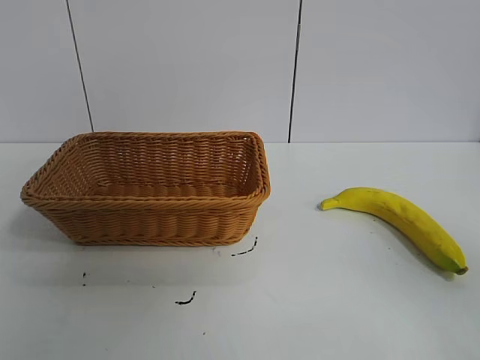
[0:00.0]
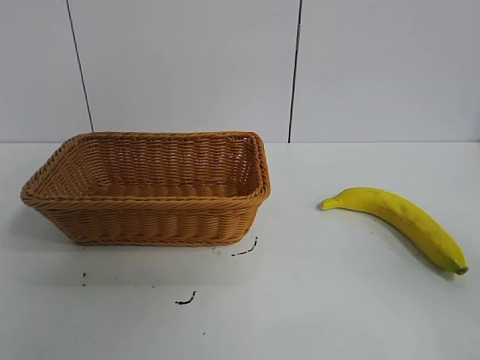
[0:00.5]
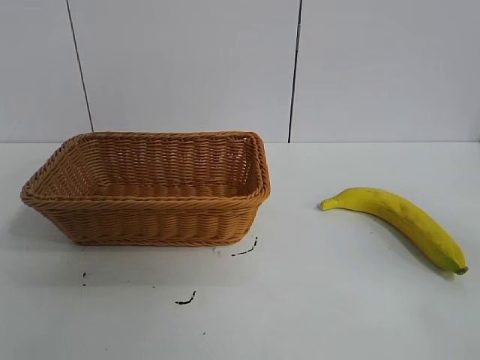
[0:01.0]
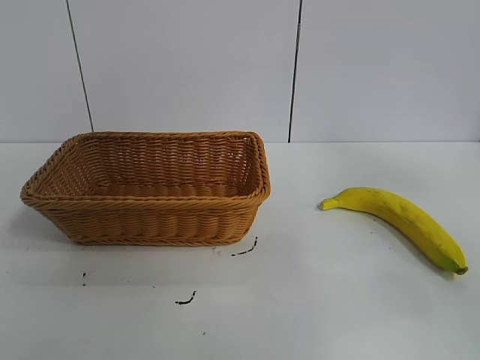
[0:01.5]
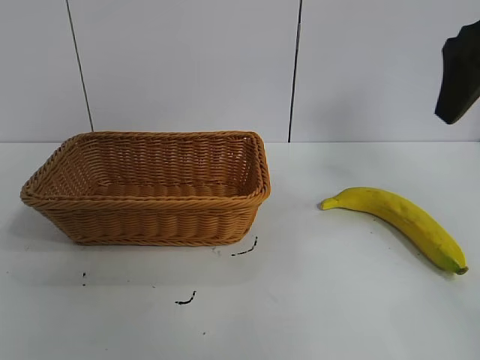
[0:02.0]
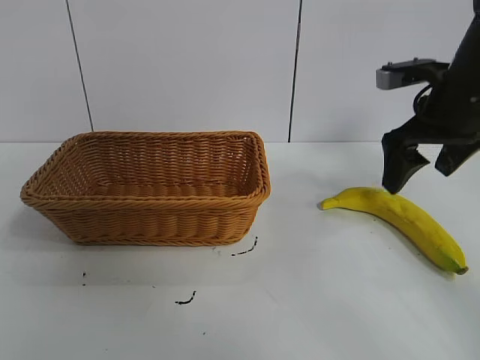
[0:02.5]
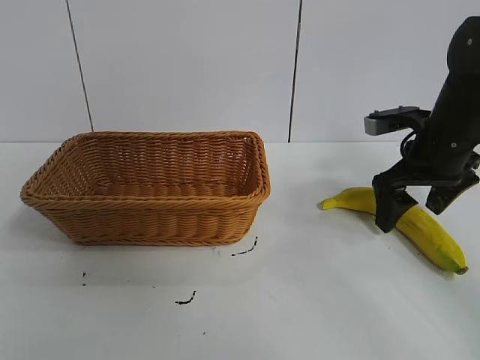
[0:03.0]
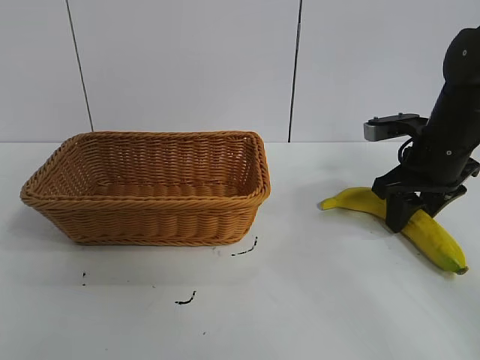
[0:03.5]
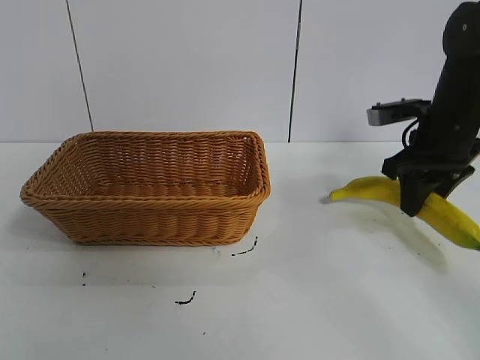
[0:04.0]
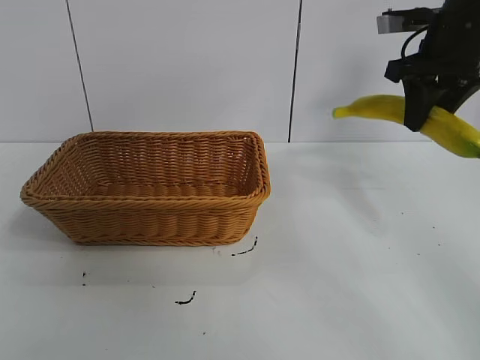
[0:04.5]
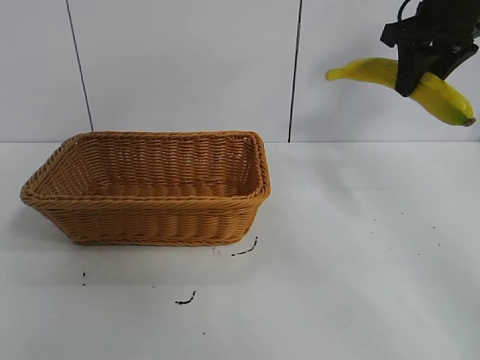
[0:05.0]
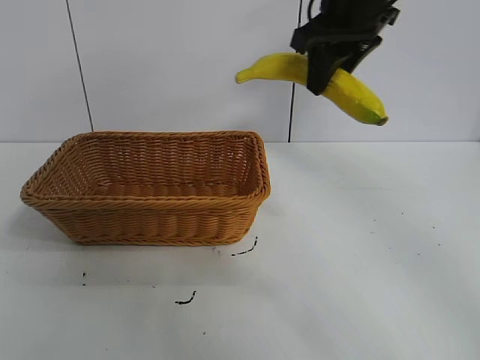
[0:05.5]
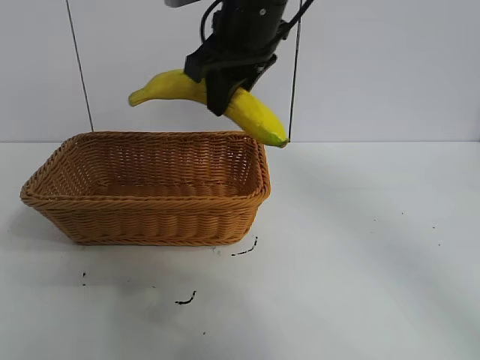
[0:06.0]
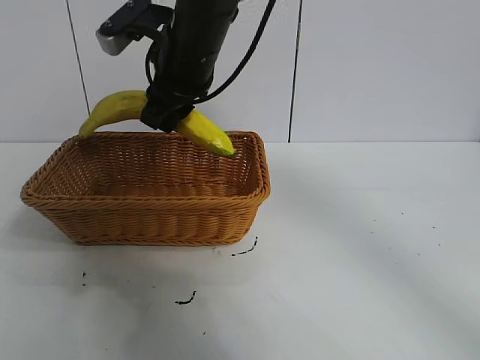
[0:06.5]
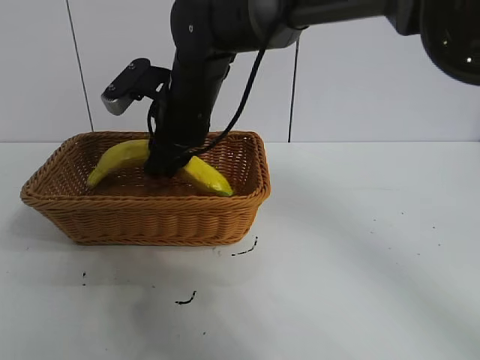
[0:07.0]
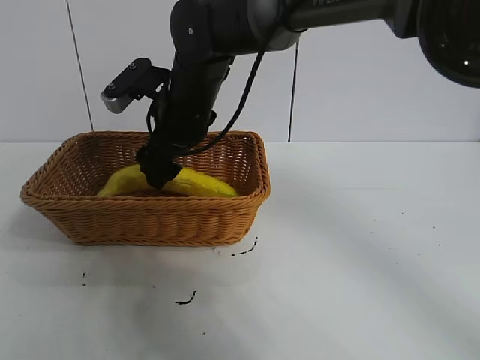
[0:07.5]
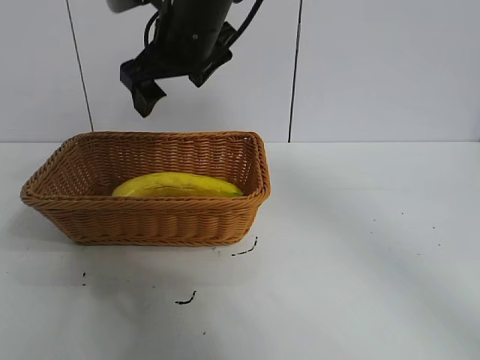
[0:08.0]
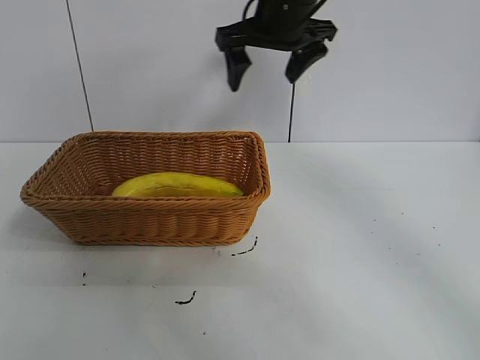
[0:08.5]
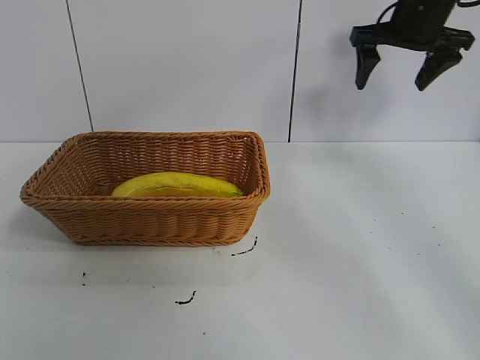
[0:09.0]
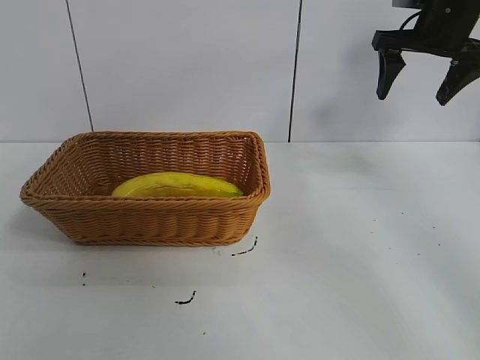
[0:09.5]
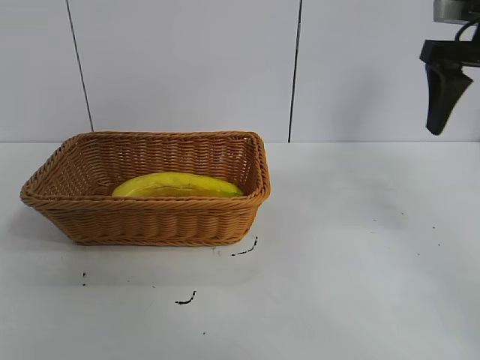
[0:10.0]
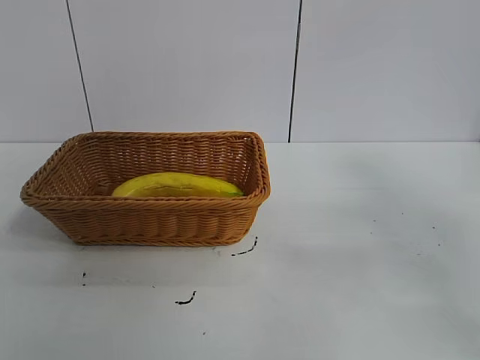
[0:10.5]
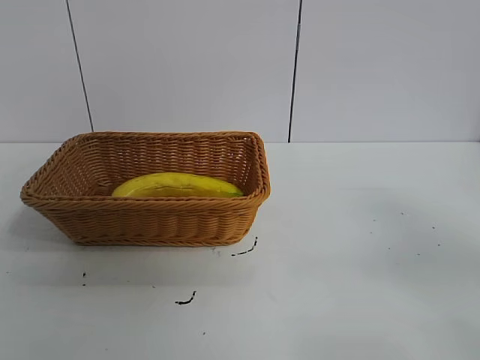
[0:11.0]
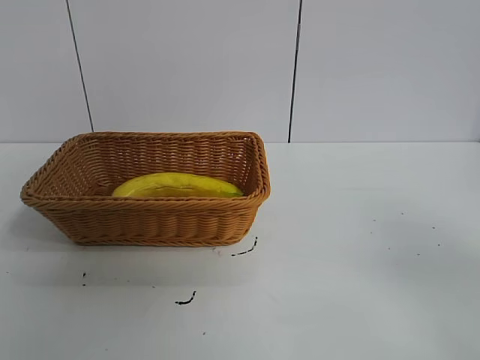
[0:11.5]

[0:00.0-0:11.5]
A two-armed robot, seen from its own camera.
Task of the whole recording: pick up the banana and put it into the basket.
Step, 0:01.0 to 0:03.5: Grasp the banana with right gripper.
Step, 0:04.0 to 0:07.5: Place the banana in the basket with right gripper.
